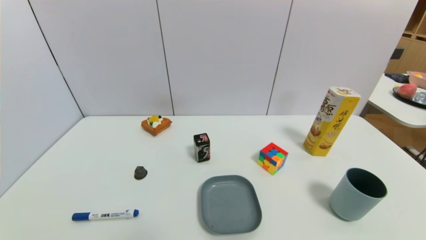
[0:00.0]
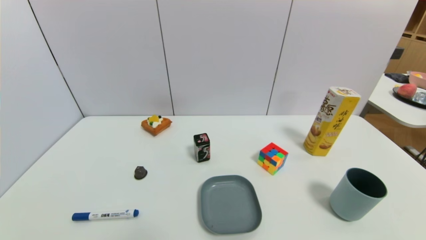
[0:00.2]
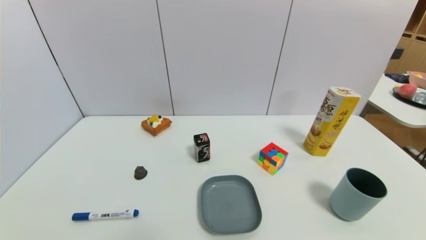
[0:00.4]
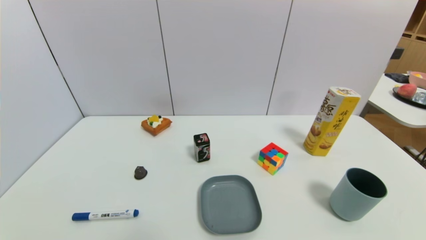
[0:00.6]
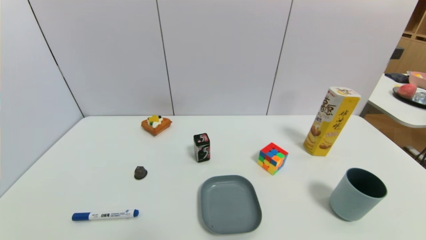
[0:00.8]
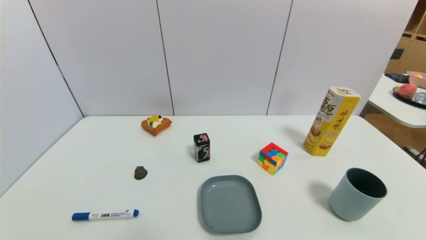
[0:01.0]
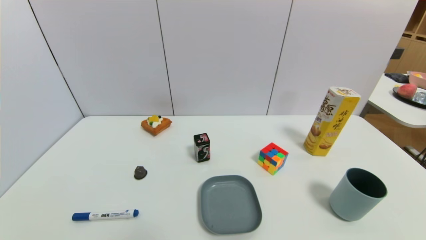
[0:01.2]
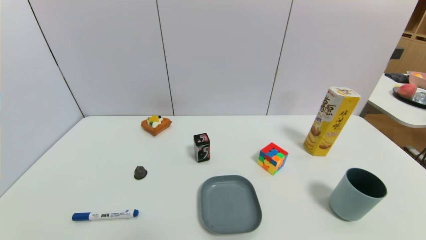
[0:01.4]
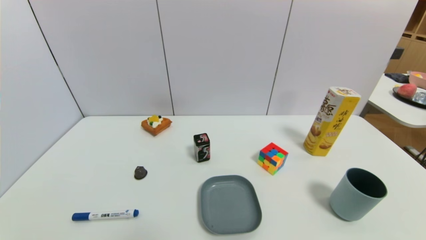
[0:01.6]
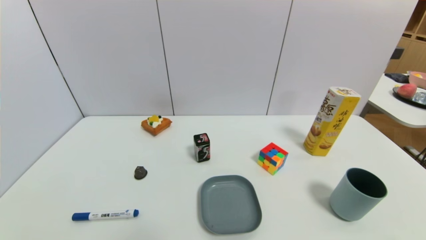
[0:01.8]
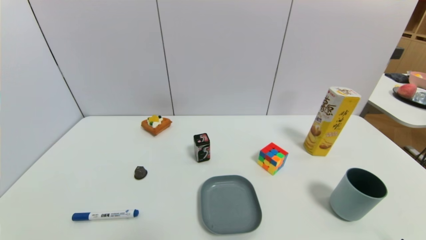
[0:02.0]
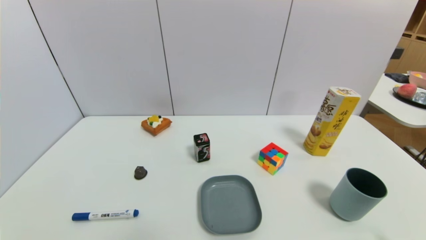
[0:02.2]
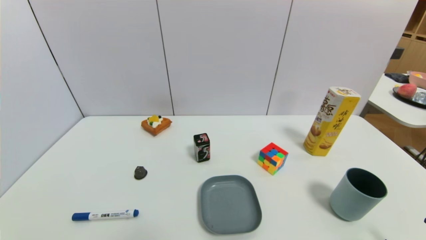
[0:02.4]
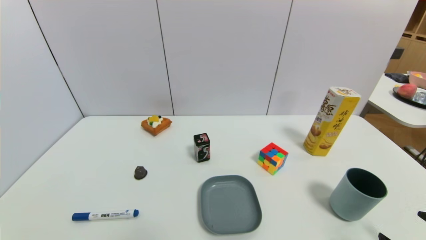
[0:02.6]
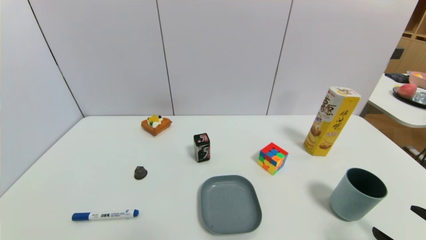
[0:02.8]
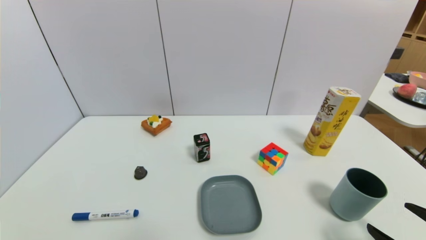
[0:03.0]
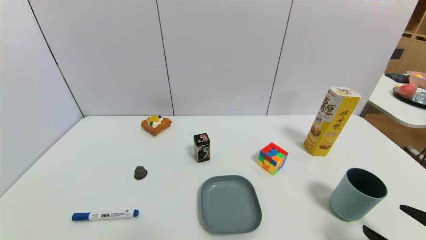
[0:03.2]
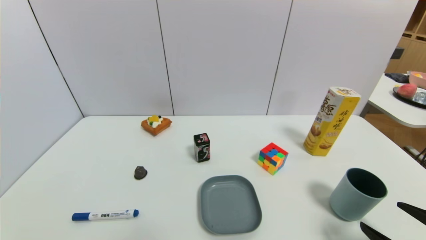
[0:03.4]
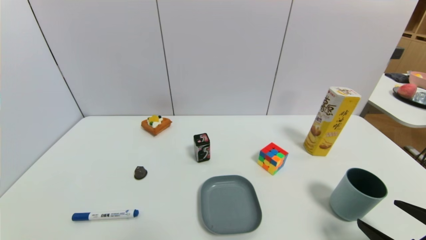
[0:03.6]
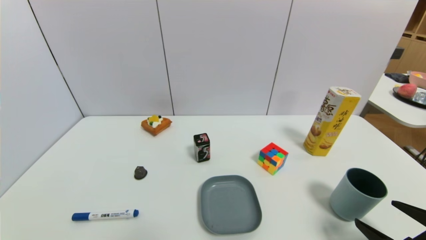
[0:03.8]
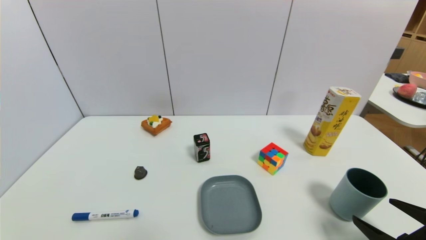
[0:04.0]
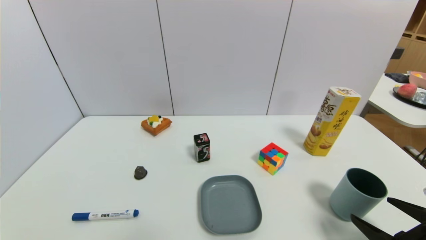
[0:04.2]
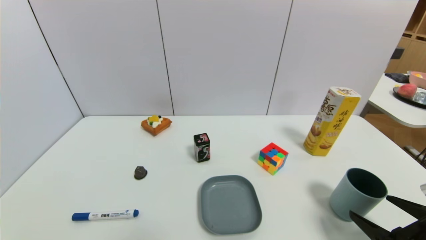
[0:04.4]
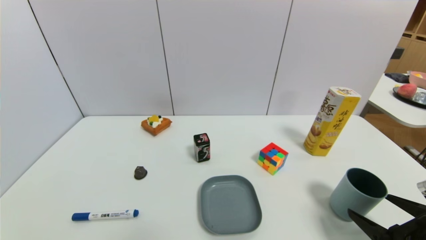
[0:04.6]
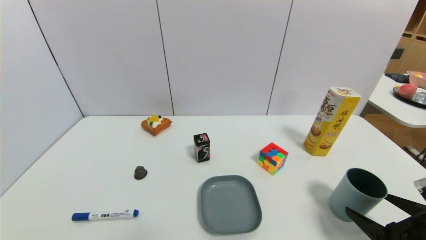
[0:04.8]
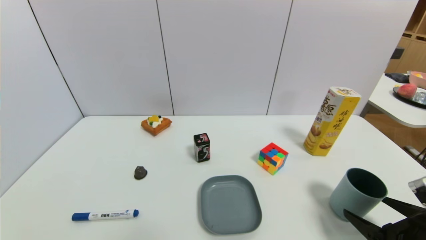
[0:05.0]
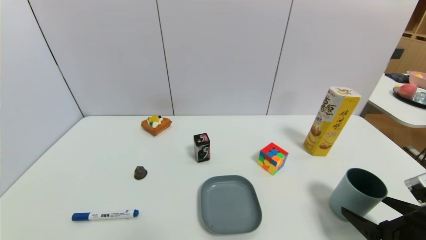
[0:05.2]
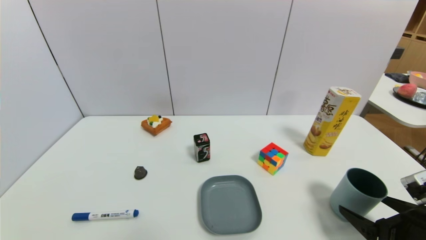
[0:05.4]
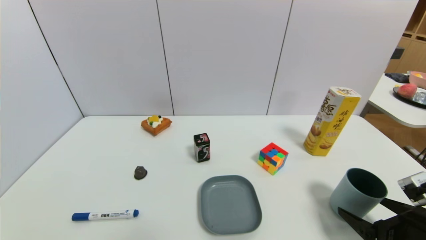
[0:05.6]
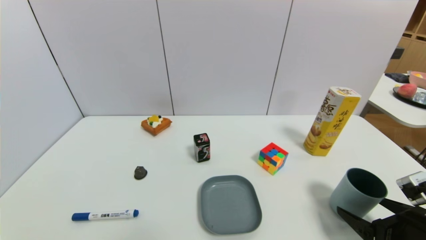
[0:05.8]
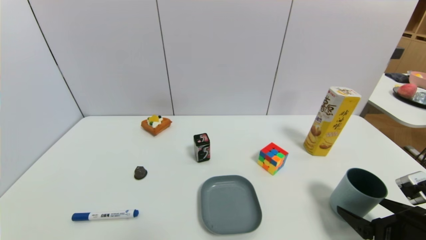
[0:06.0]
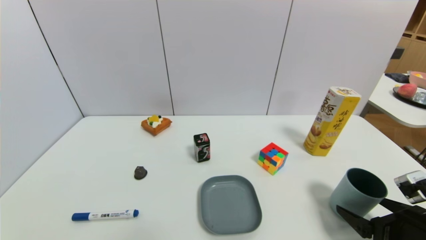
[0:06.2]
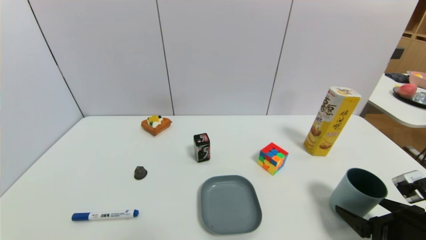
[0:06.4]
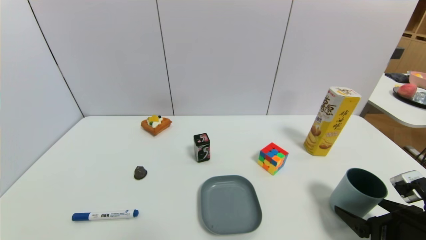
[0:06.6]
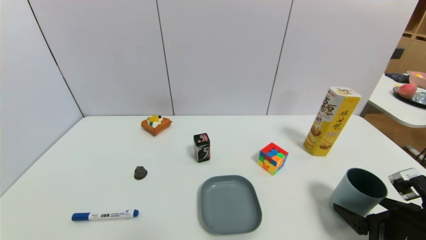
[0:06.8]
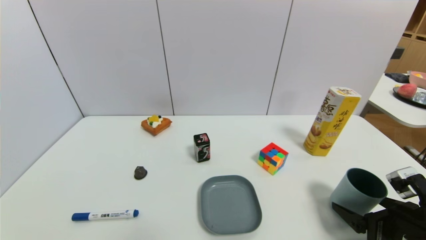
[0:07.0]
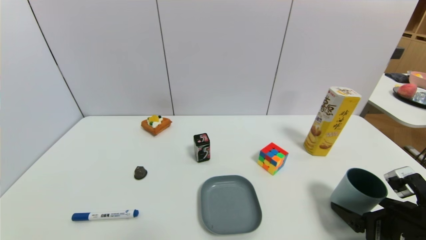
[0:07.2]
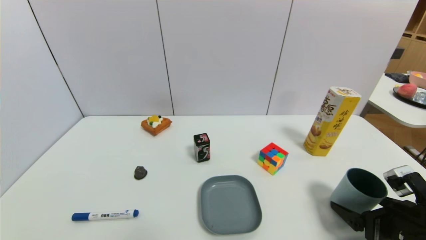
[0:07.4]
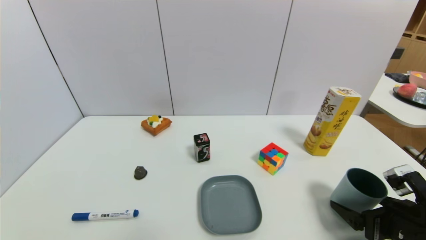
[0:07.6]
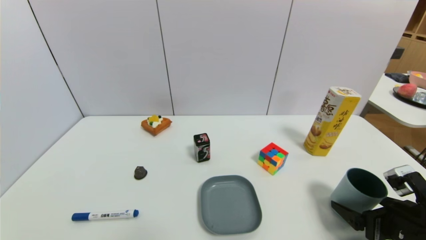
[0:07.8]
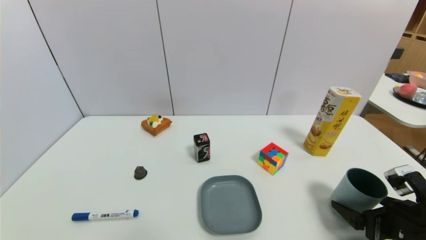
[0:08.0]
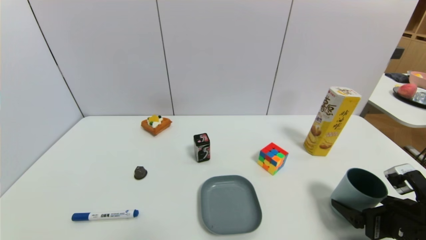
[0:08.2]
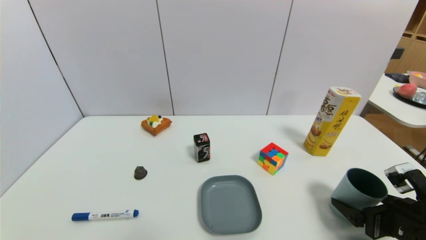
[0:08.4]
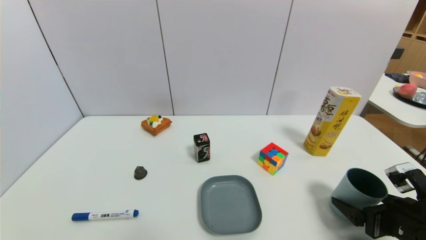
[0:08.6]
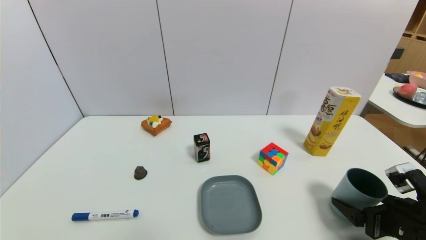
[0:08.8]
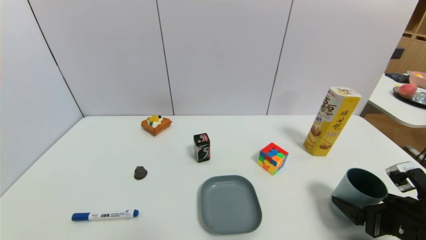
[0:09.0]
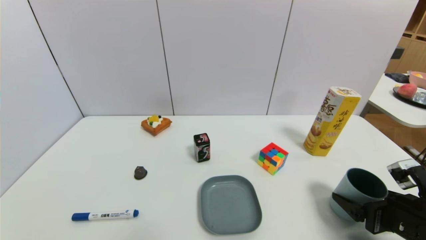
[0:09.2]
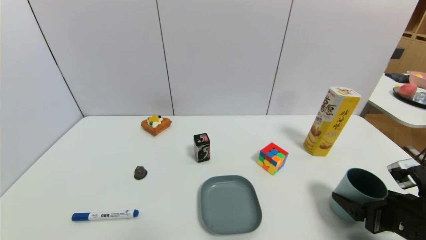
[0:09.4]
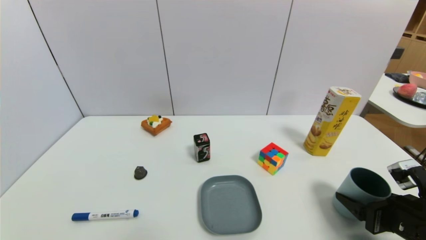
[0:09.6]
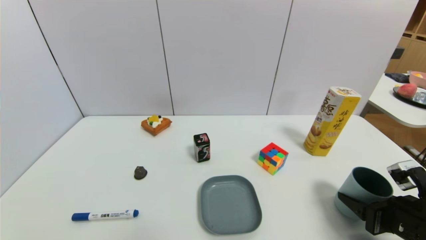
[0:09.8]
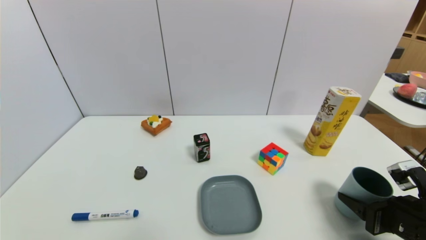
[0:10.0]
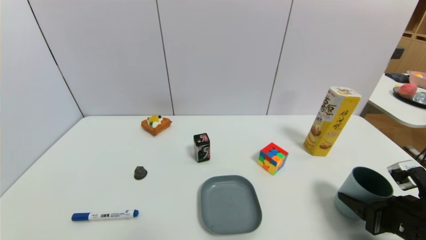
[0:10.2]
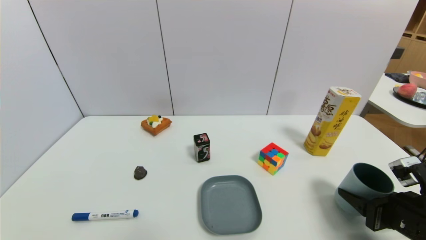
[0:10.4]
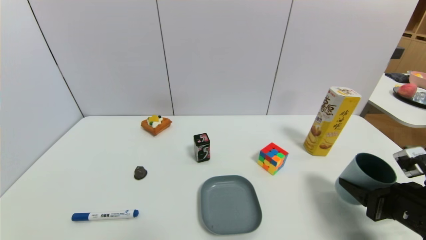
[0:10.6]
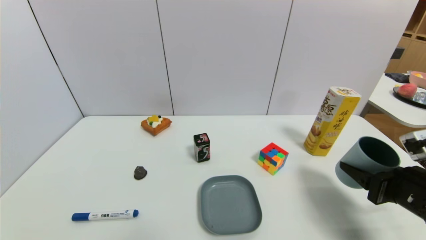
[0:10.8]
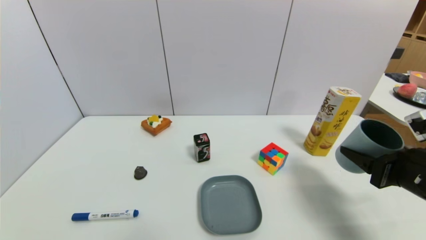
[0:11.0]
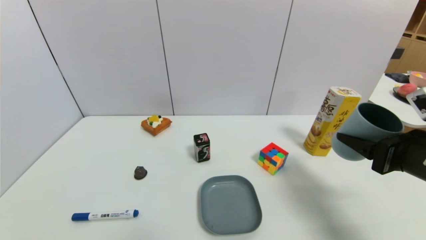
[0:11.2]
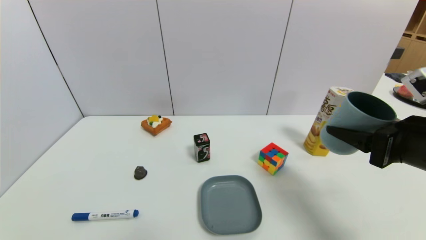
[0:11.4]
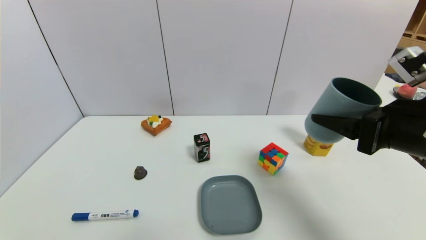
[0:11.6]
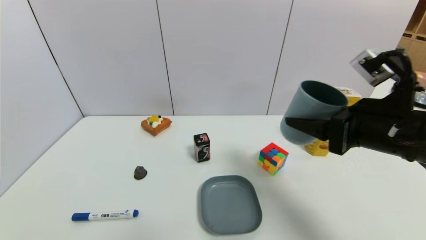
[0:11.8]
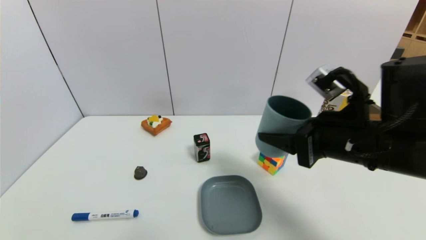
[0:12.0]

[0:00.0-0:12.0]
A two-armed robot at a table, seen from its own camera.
Task of the whole recording: use a gripper to pick the target object and place on the dish.
Step, 0:00.0 to 0:10.0: Grasp the blue cup with the right gripper.
0:01.6 to 0:03.0: The right gripper goes approximately 5 cm forward.
0:03.0 to 0:04.4: There are only small adjustments of the grippers.
0:04.4 to 0:07.6: The grippers move only a little.
0:07.6 to 0:09.0: Both grippers stay about where they are.
0:09.0 to 0:10.4: The right gripper closes.
0:10.4 to 0:12.0: The right gripper moves upward and to the left, approximately 20 cm.

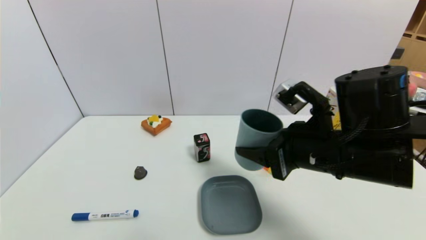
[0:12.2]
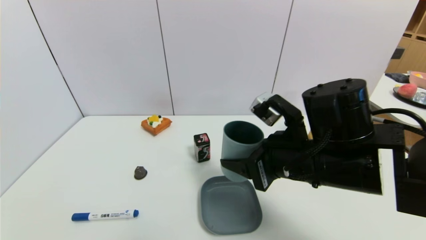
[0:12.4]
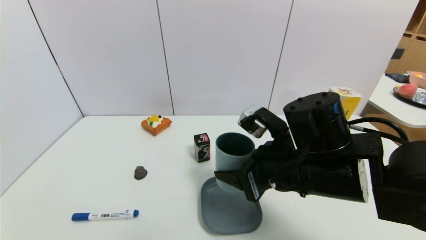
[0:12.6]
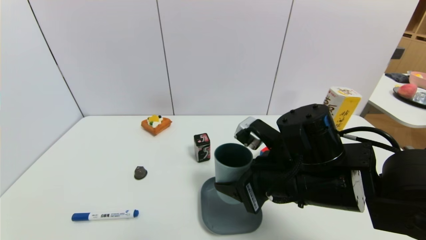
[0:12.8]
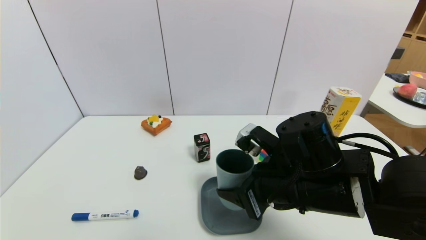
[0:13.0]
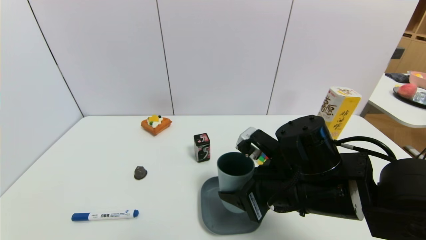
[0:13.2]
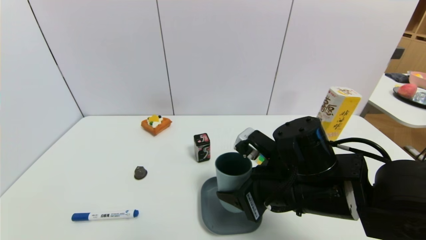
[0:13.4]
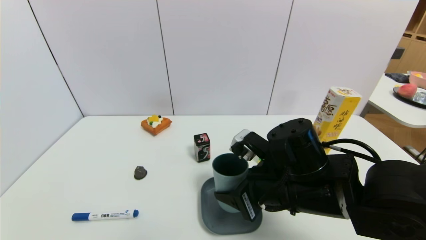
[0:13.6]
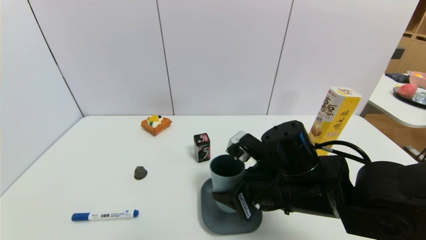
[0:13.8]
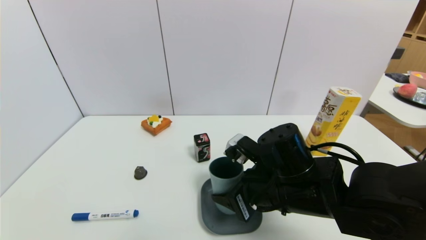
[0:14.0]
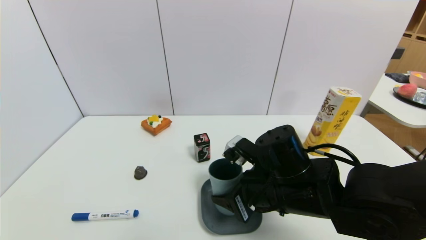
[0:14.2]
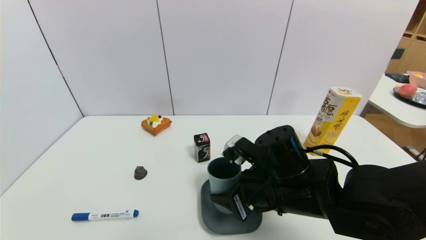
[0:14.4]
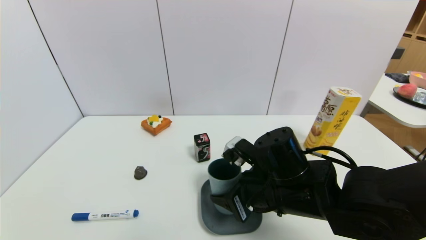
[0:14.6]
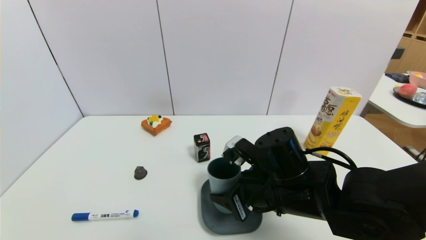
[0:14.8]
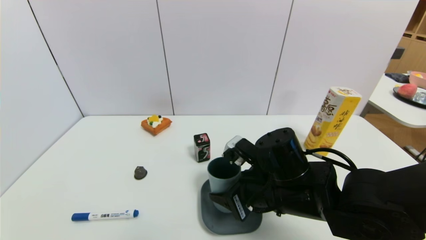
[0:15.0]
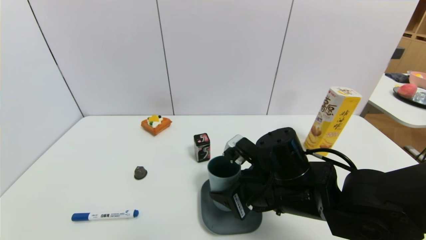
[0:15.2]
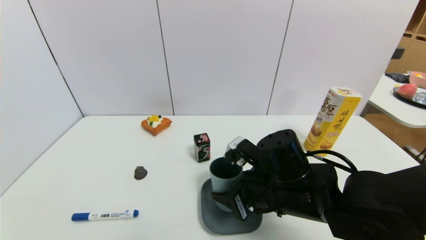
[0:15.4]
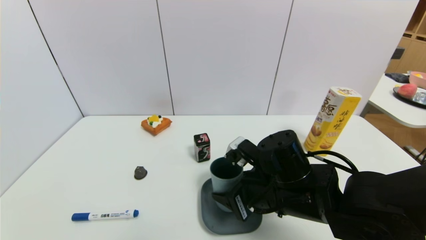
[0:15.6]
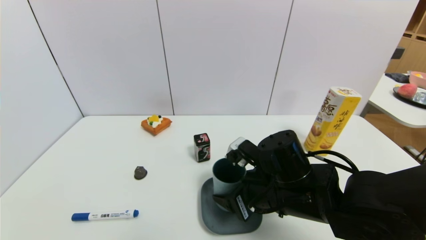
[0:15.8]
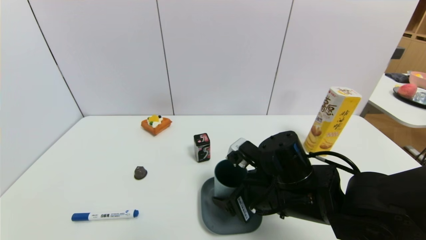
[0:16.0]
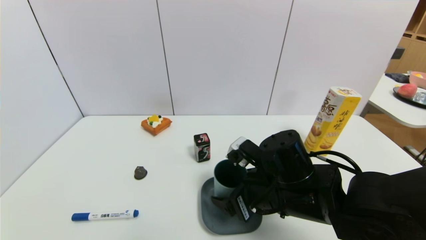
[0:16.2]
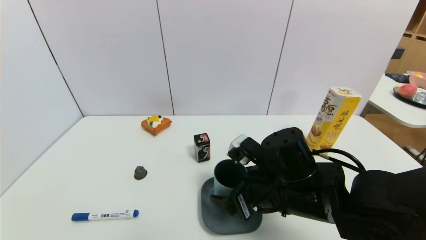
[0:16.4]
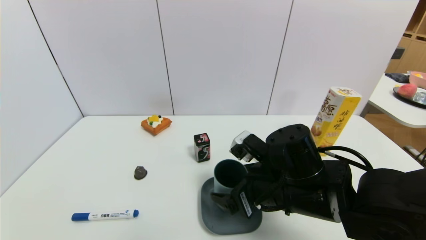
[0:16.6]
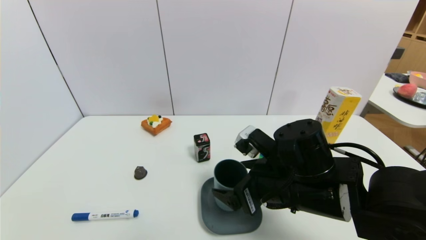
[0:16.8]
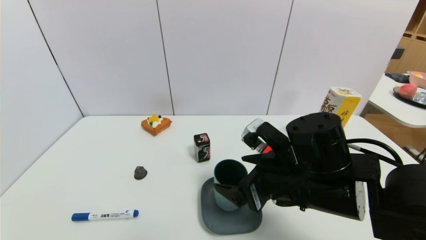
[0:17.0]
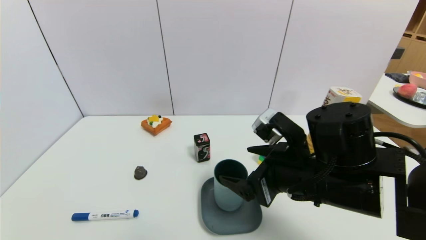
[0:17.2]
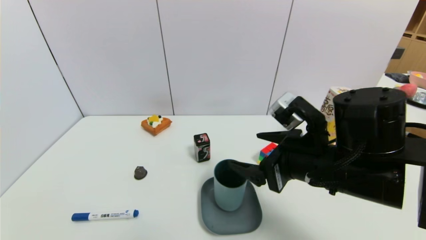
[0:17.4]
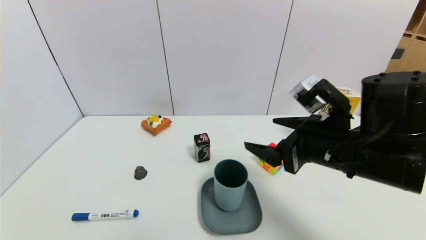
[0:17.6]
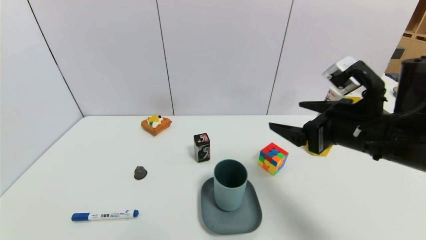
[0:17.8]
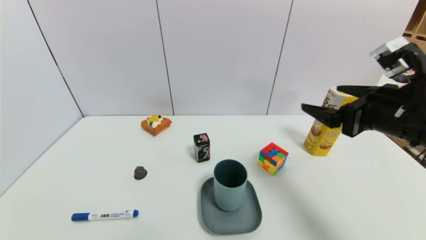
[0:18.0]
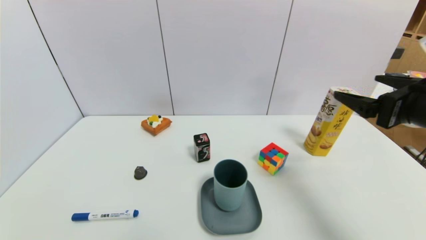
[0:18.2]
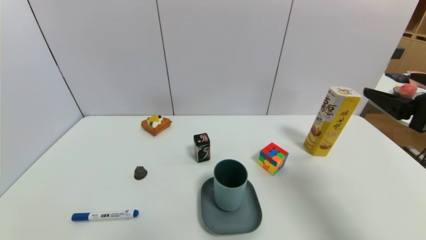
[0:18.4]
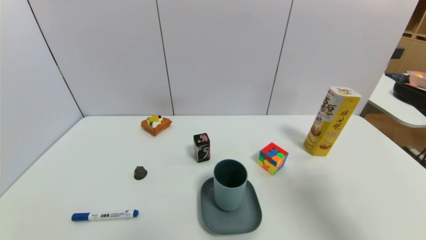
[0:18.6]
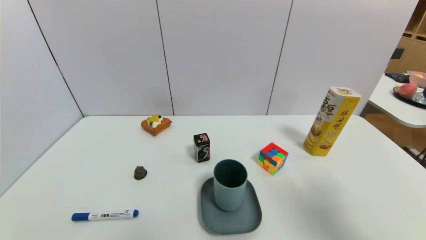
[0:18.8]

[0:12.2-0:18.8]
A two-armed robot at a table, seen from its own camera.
Task of the whole recording: use a gripper to pick the target object and place on the dish.
Step, 0:12.2 to 0:17.2: Place the blue cup on the dish with the right gripper.
0:12.2 to 0:13.8: The right gripper goes some 5 cm downward.
0:13.8 to 0:15.4: The grippers stay close to where they were, moving slightly.
0:15.4 to 0:17.2: The right gripper travels upward by approximately 5 cm, and opens up.
0:17.2 to 0:18.8: The right gripper goes about 25 cm to the right, backward and upward.
